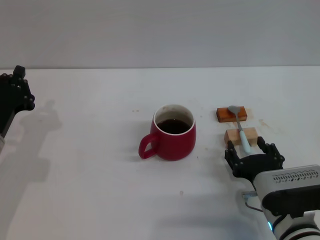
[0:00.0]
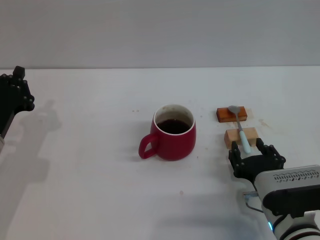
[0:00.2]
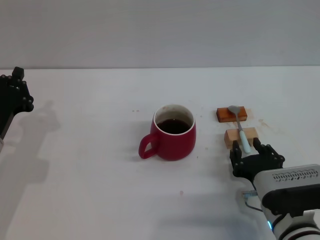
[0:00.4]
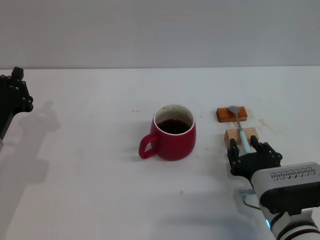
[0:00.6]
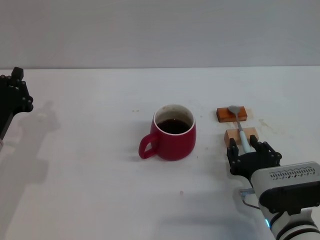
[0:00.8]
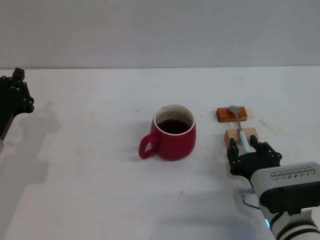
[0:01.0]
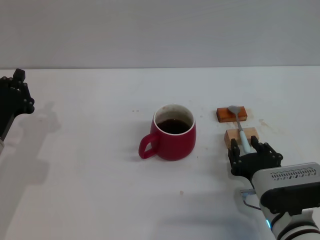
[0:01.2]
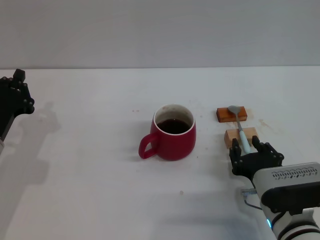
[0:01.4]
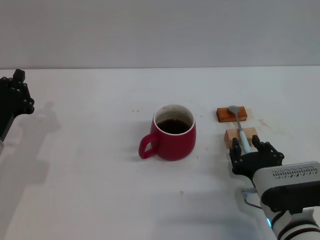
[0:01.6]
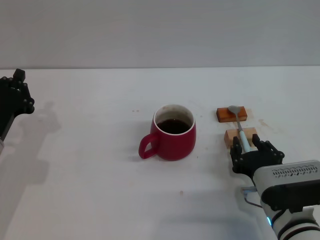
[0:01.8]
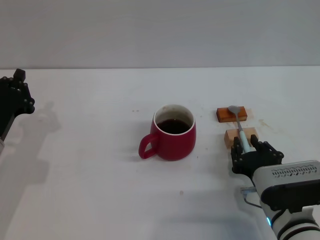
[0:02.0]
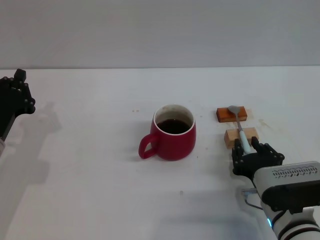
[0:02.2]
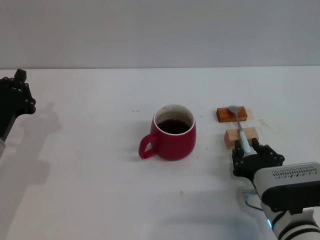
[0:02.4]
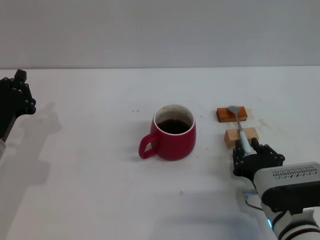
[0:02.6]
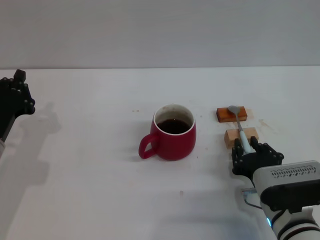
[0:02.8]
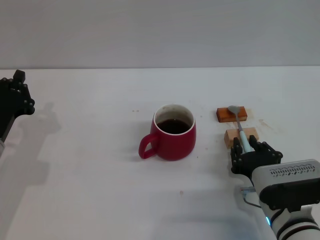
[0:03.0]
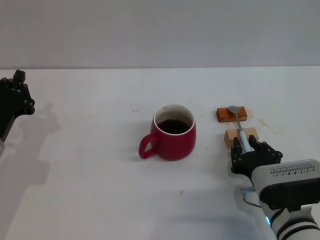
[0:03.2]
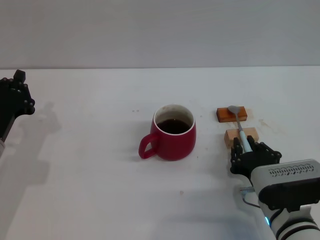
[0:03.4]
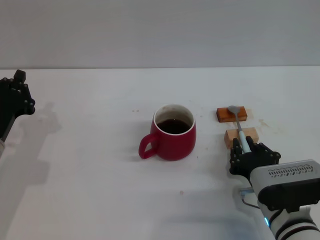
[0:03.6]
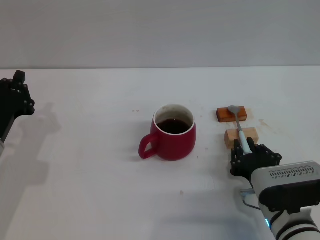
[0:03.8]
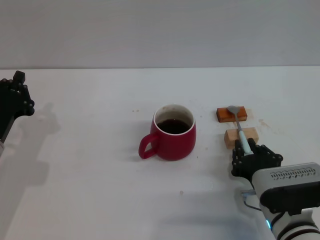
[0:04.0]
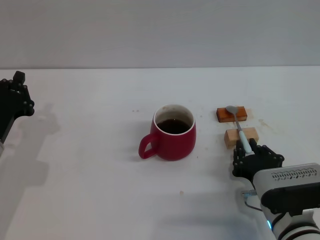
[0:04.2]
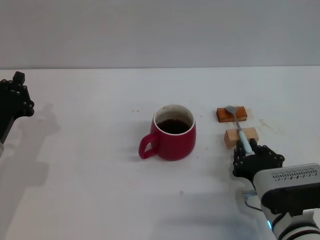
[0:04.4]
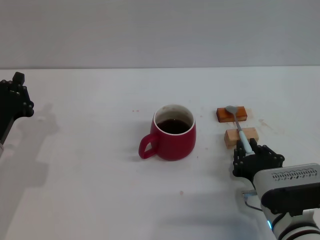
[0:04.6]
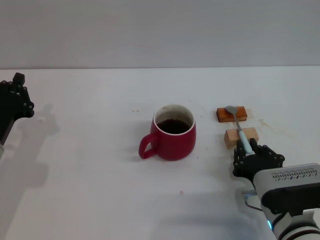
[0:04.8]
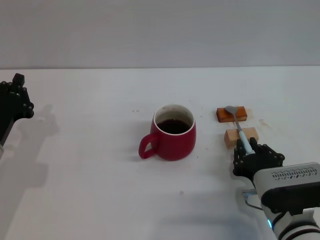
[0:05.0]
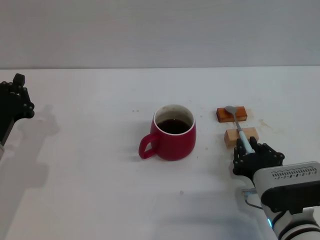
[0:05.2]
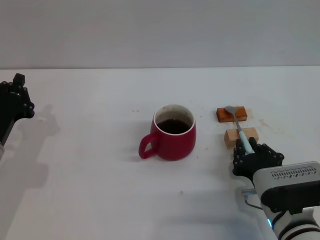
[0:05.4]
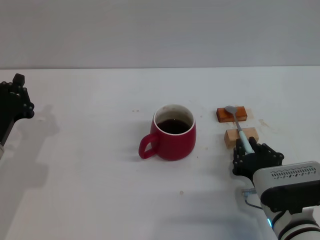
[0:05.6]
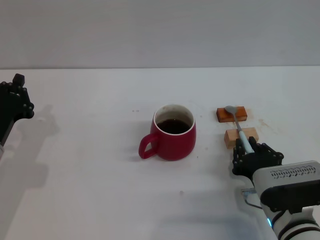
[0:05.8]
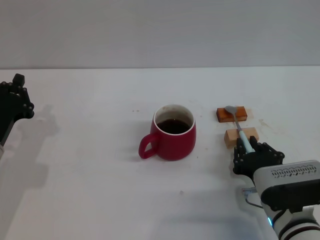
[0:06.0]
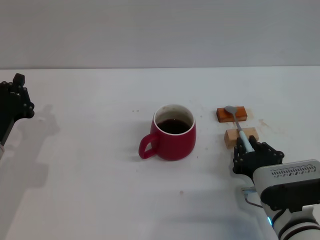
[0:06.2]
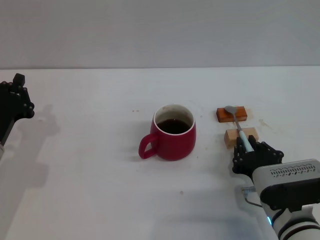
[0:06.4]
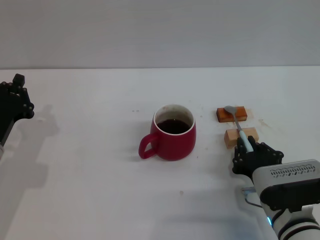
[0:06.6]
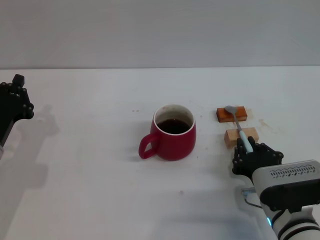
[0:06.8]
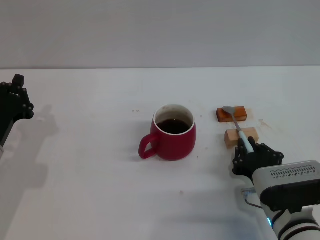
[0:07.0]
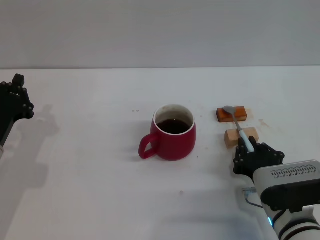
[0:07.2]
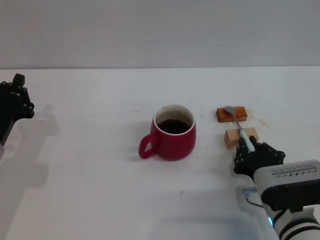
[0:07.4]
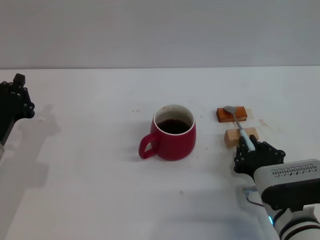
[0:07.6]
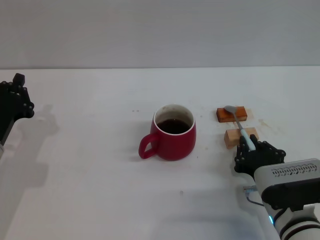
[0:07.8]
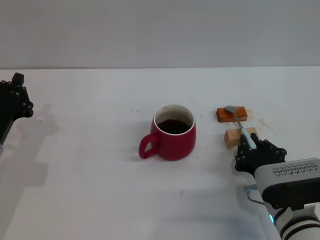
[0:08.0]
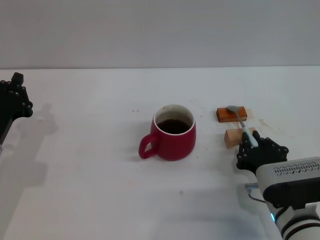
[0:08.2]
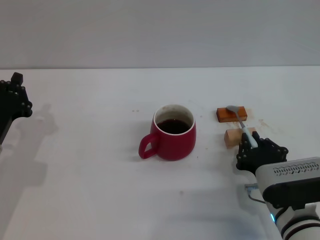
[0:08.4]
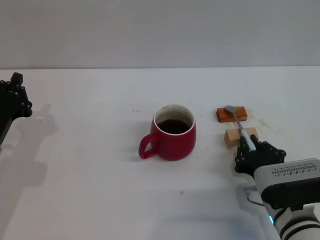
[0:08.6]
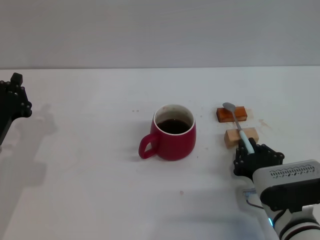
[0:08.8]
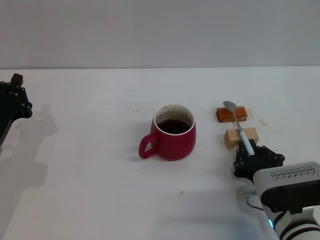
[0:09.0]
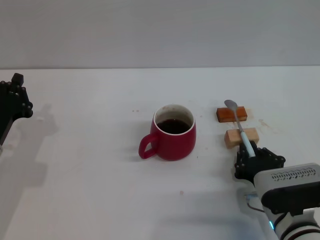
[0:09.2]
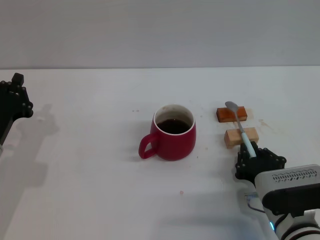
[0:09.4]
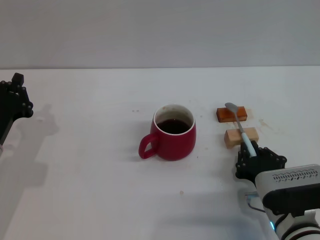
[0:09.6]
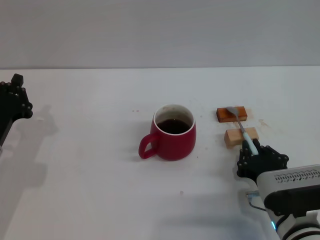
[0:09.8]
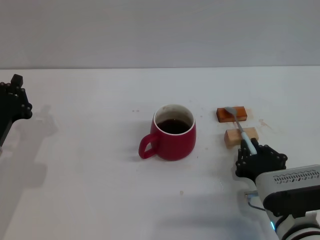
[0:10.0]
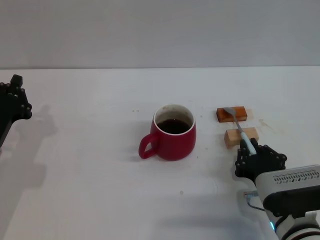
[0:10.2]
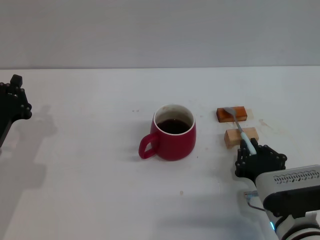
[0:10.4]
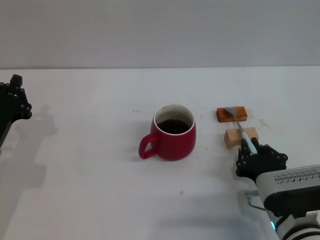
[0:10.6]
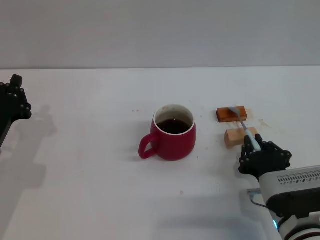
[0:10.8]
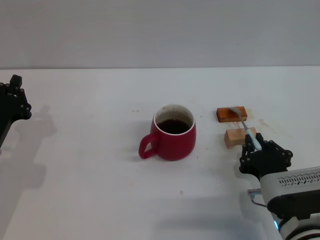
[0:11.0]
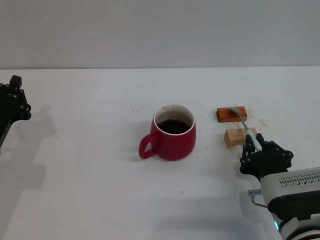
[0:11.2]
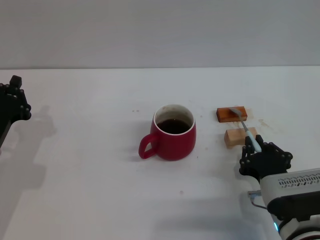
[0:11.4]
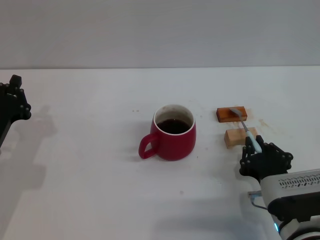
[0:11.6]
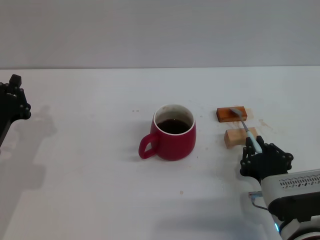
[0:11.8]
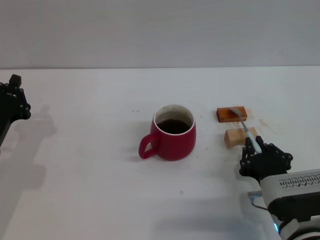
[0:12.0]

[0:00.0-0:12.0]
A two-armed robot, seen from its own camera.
Task of the whole recording: Move the red cup to the center, lift the blue spoon, stir it three times in the cup, and put the spoon into the cup.
0:00.0 to 0:01.6: The right gripper closes its fingers.
0:01.6 to 0:12.0: Both grippers stay put.

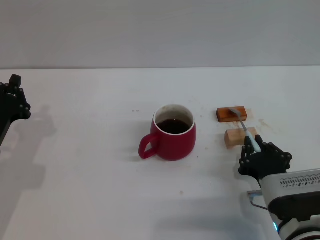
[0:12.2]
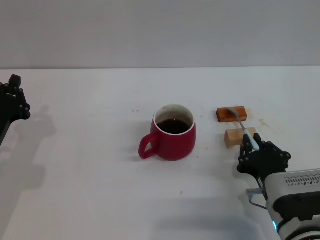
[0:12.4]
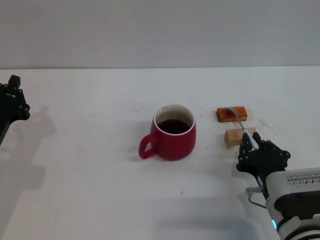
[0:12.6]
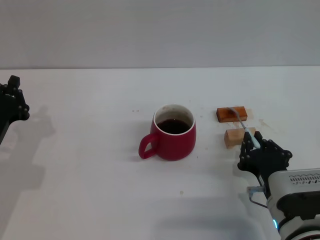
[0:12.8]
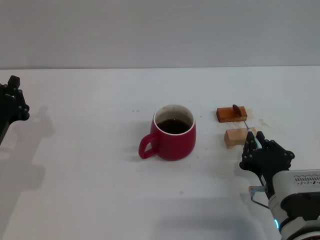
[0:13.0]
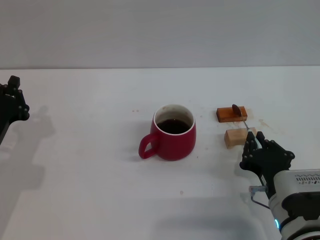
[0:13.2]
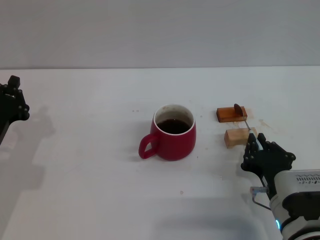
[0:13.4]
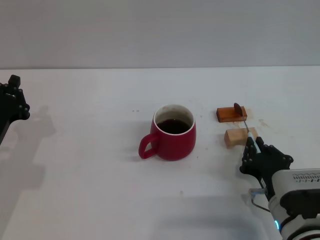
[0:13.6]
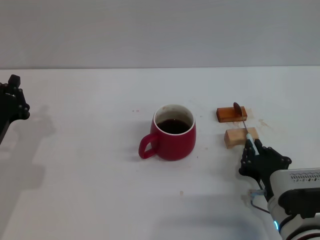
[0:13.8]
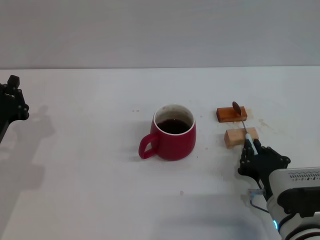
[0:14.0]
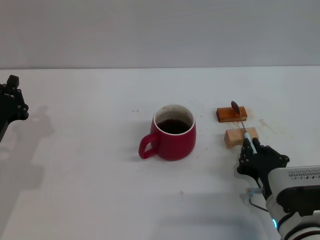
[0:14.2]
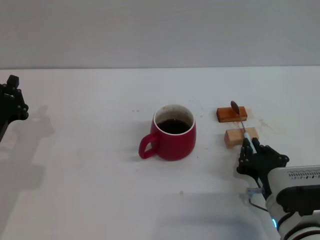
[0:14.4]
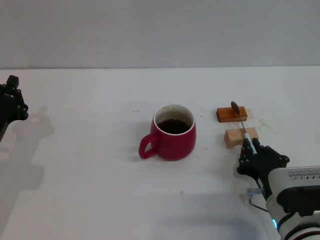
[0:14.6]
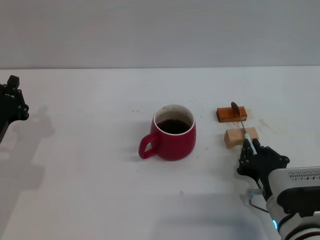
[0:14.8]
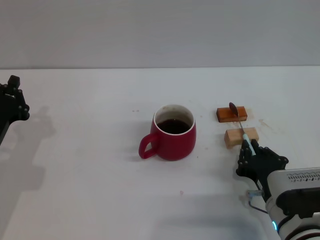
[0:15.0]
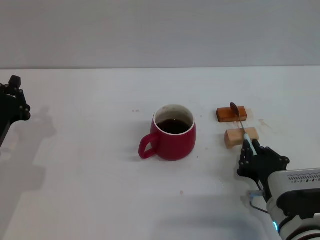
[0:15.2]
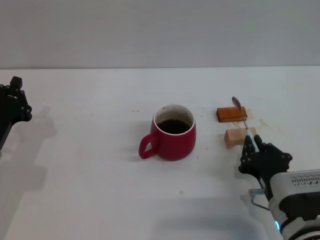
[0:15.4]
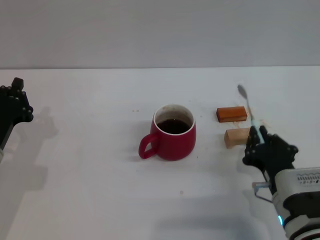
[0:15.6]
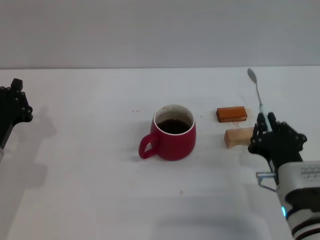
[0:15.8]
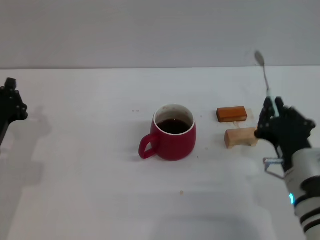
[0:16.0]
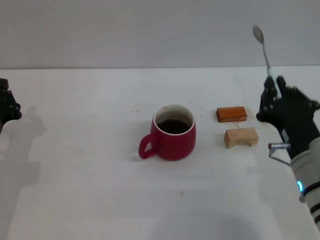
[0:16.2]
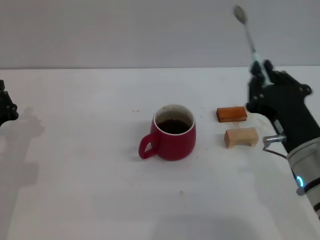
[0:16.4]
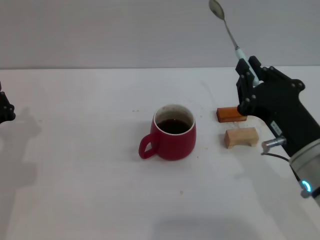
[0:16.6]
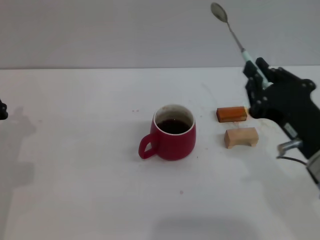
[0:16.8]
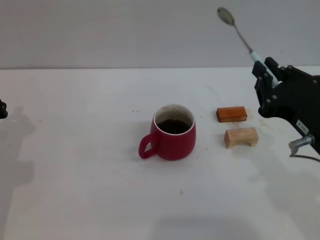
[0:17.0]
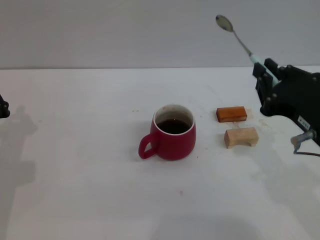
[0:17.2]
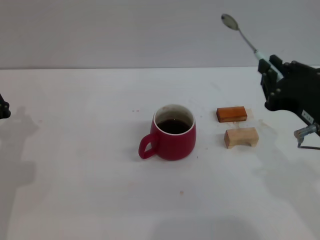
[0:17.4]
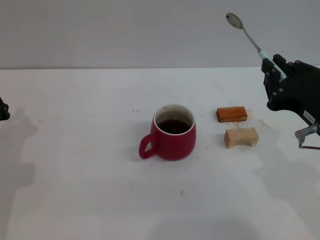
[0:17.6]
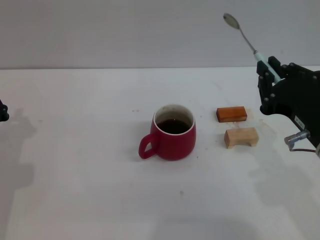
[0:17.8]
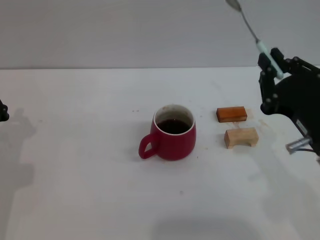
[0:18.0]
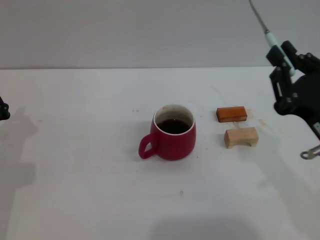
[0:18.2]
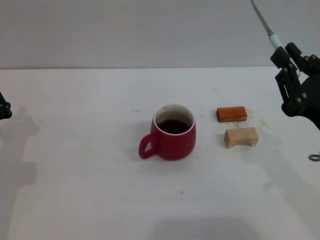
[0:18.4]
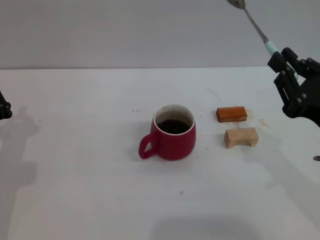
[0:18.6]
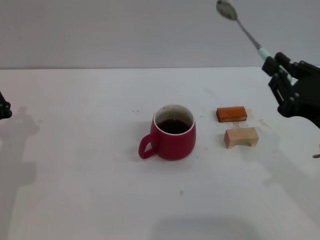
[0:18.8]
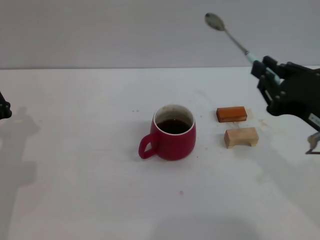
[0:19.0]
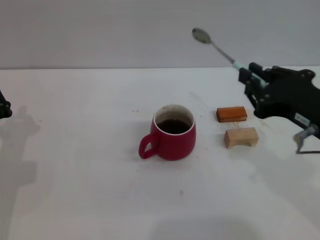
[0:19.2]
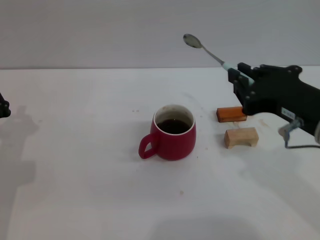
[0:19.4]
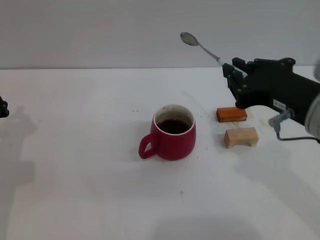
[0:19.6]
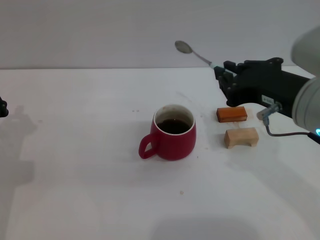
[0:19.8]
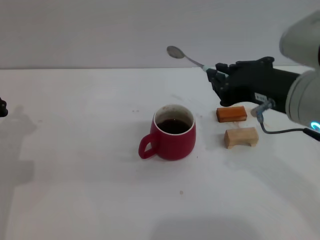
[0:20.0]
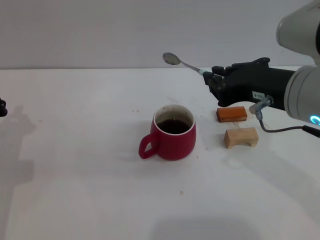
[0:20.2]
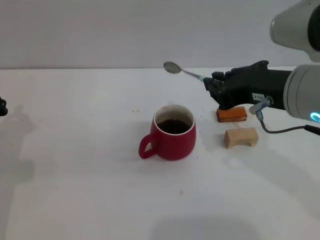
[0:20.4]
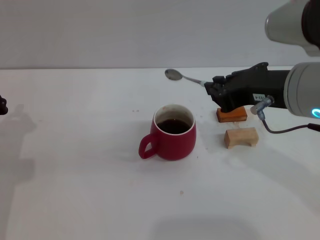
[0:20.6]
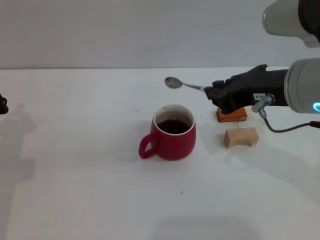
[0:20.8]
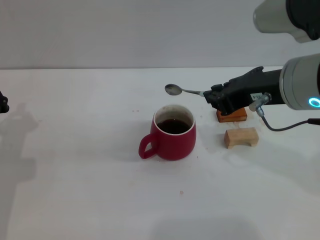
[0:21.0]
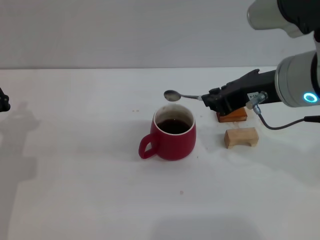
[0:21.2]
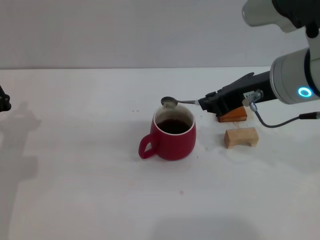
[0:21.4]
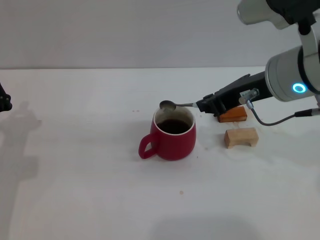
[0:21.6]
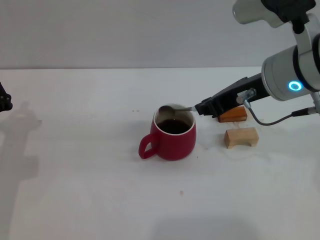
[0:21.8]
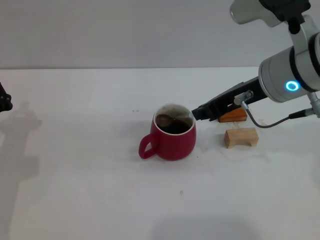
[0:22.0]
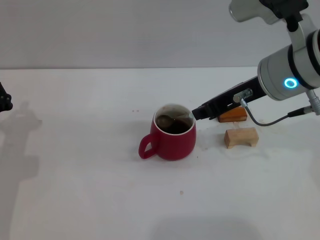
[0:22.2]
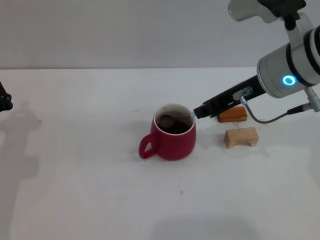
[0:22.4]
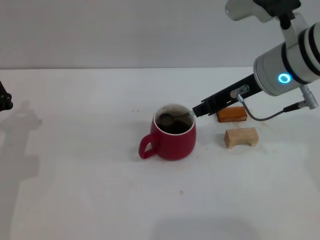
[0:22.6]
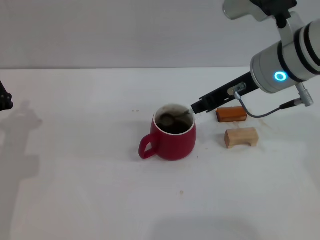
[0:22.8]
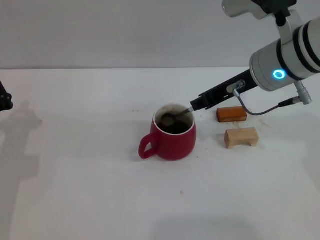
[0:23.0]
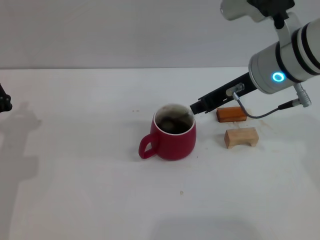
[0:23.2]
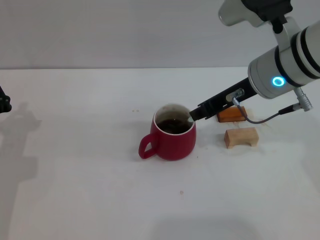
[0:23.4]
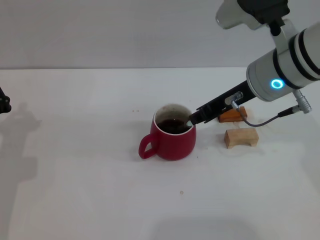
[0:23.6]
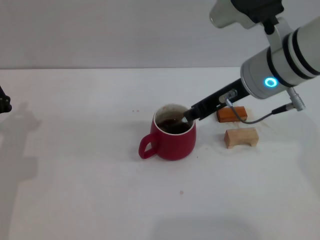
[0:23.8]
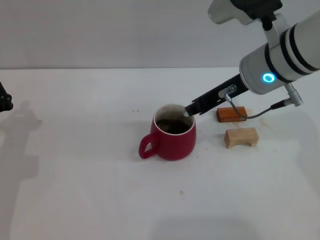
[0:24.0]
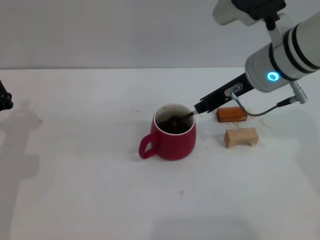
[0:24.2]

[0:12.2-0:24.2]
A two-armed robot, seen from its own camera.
Task of the whole recording: Move the red cup to the center, lift the blue spoon, stir it three times in the cup, and put the spoon into the cup.
Step, 0:12.2 to 0:15.0: Grasp the spoon with right gripper.
0:12.2 to 0:13.8: The grippers stay close to where they were, moving slightly.
0:13.8 to 0:15.2: The two grippers keep their place.
0:15.2 to 0:16.6: The right gripper is displaced upward by roughly 15 cm.
0:16.6 to 0:18.2: The right gripper moves roughly 5 cm.
0:18.2 to 0:19.8: The right gripper moves upward and to the left, approximately 10 cm.
0:19.8 to 0:21.2: The right gripper changes place by some 5 cm.
0:21.2 to 0:22.6: The right gripper goes approximately 5 cm forward.
0:22.6 to 0:24.2: There are only small adjustments of the grippers.
